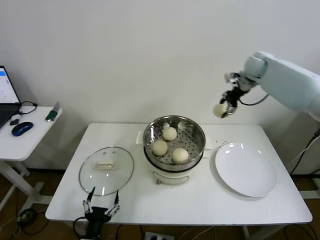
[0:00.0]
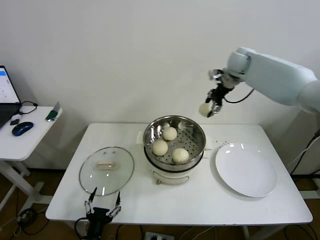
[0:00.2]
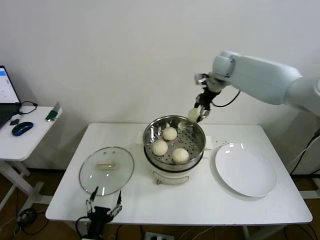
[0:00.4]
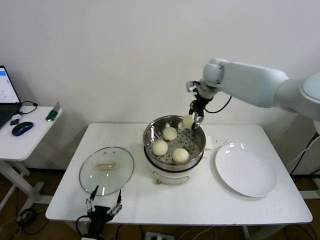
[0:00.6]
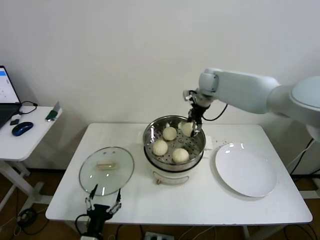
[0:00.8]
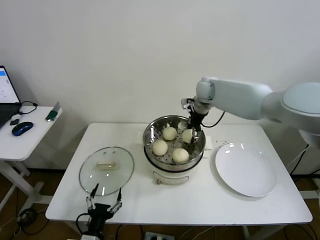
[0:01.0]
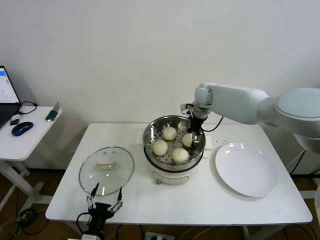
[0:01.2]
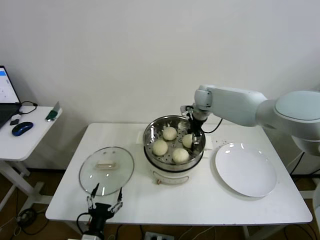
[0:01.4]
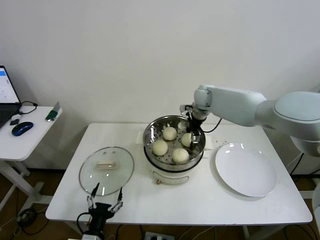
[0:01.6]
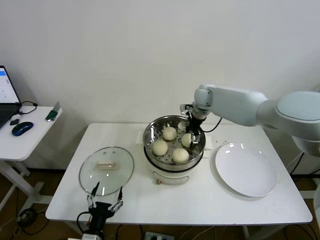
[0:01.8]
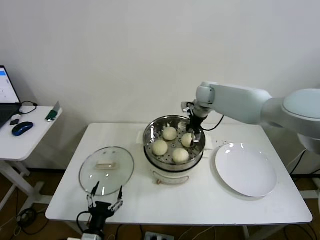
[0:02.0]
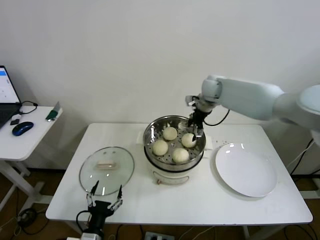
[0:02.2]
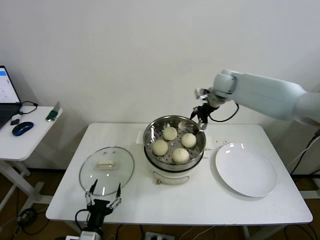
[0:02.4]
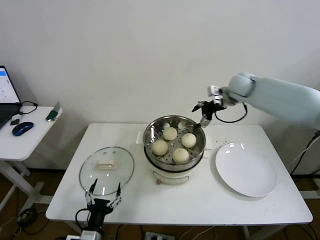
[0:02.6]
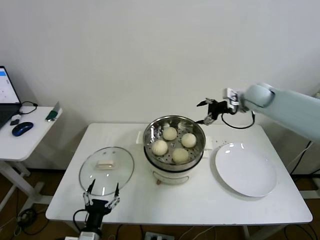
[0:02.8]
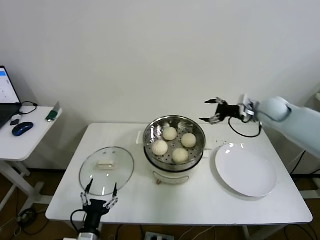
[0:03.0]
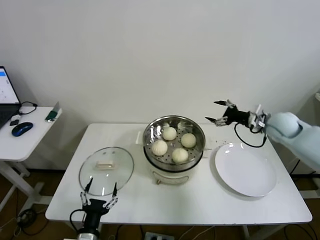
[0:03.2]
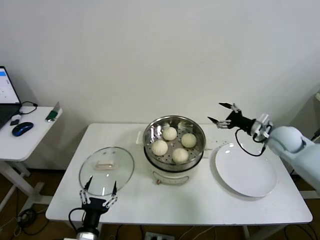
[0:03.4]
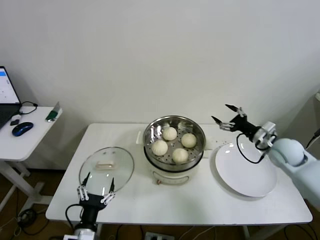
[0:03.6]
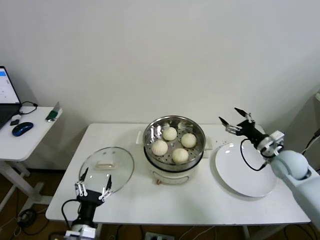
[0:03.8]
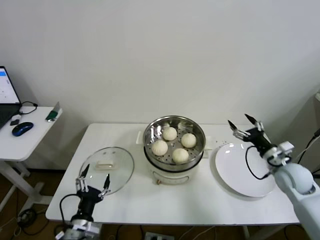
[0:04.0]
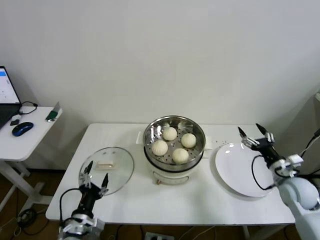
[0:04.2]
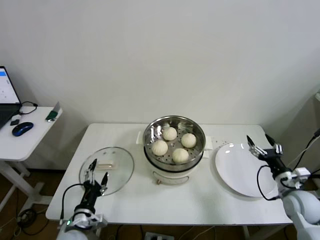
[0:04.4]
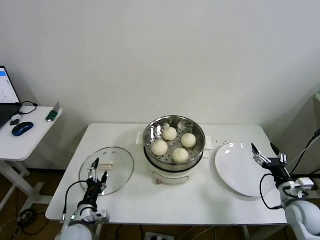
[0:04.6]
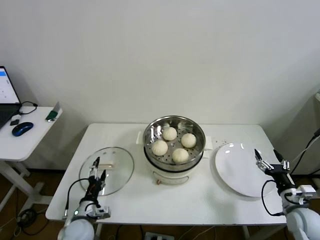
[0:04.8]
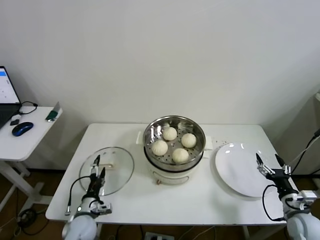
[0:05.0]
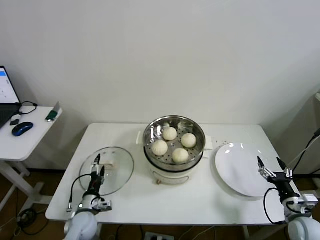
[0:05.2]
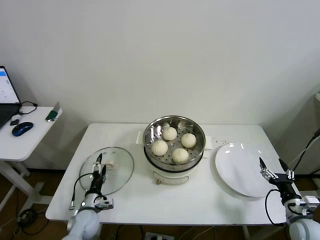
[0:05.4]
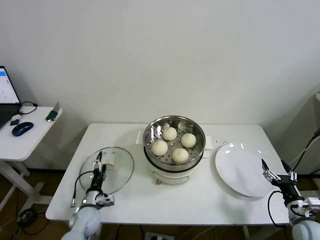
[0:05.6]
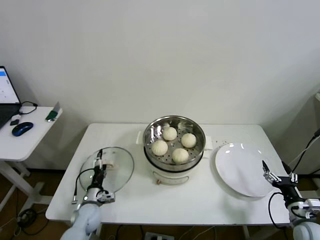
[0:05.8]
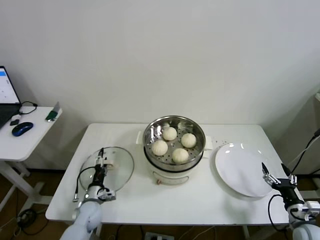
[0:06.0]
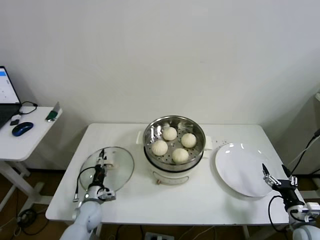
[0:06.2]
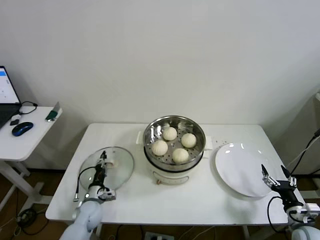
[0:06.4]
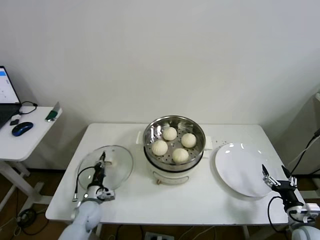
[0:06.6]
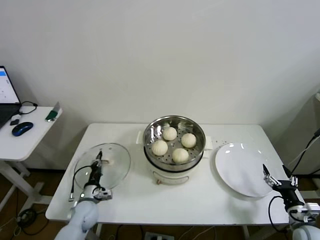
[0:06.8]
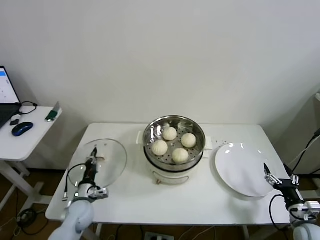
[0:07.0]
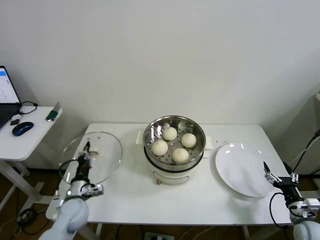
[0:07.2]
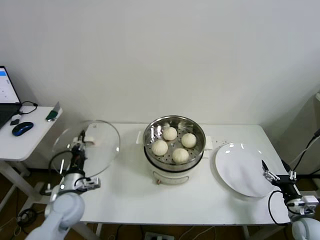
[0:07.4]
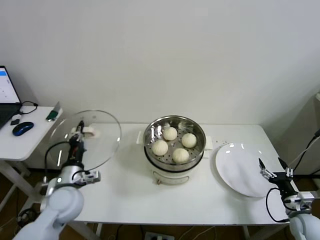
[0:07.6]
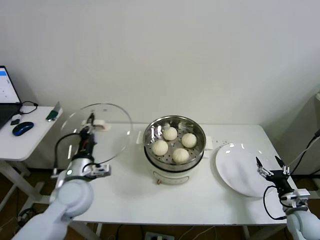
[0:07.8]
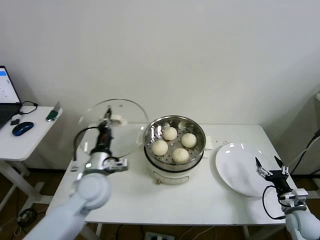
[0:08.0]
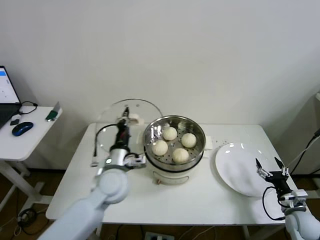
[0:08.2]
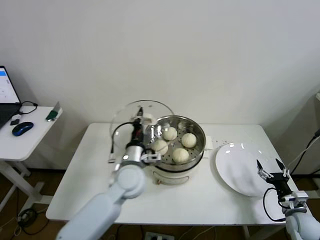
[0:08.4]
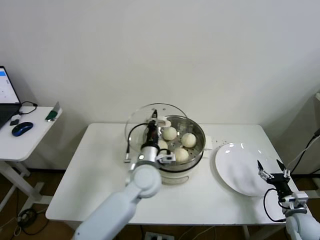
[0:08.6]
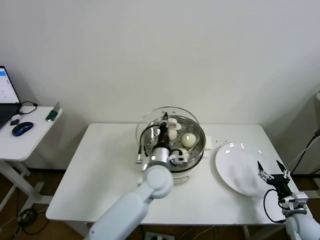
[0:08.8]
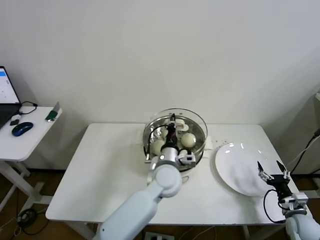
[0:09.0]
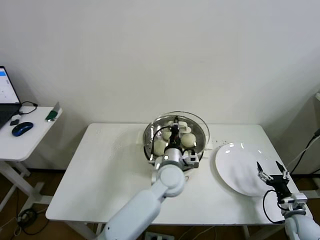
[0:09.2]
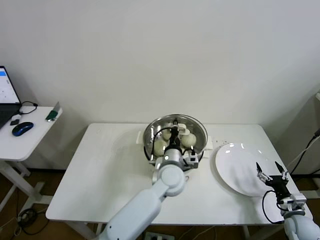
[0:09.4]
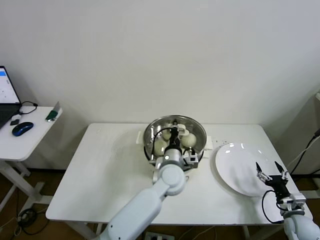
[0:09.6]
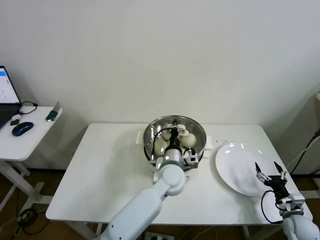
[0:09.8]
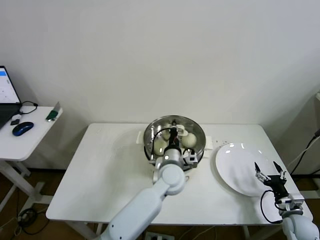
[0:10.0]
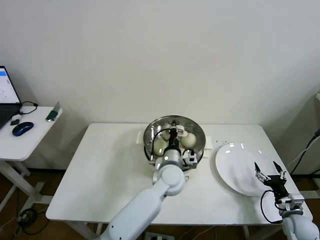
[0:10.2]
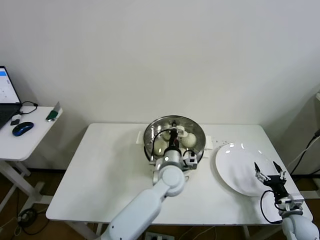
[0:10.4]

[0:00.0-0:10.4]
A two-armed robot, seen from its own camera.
Step, 0:00.0 to 0:02.0: Place the baozi on the steamer with right gripper.
Step, 0:02.2 to 0:06.6: Grasp the pot lid with left gripper.
0:00.0 to 0:01.4: The right gripper shifts about 20 cm to the left and downward.
0:01.4 to 0:03.0: The right gripper moves to the right and backward, some 25 cm, and opens its fingers.
0:03.0 to 0:04.4: The right gripper heads backward and downward, covering roughly 30 cm; the left gripper goes approximately 5 cm forward.
0:04.4 to 0:06.0: The left gripper goes approximately 15 cm forward and downward. The right gripper moves backward and downward, some 10 cm.
0:06.0 to 0:07.4: The left gripper goes some 15 cm upward, and closes its fingers.
0:07.4 to 0:09.0: The left gripper goes approximately 30 cm to the right.
0:09.0 to 0:10.4: There are only small adjustments of the grippers.

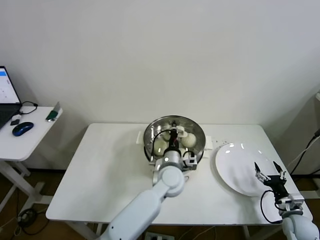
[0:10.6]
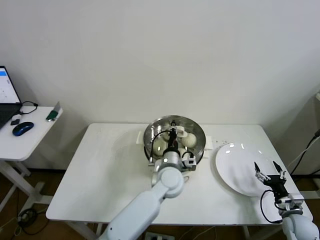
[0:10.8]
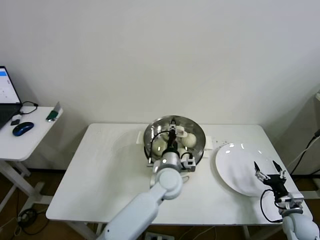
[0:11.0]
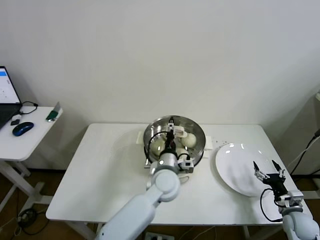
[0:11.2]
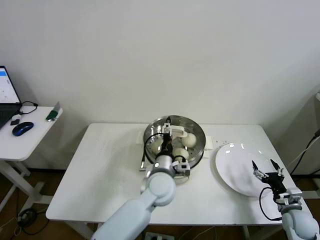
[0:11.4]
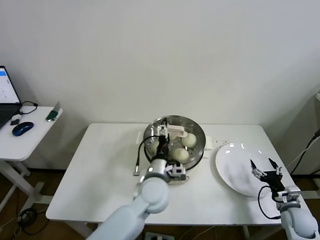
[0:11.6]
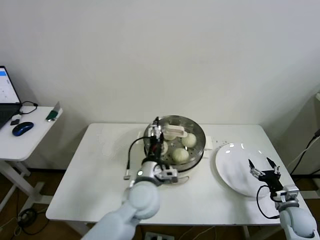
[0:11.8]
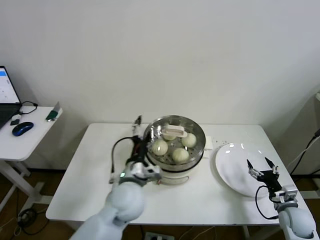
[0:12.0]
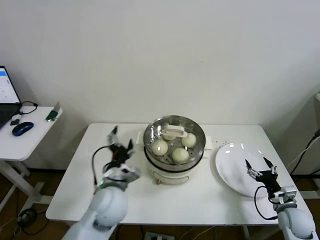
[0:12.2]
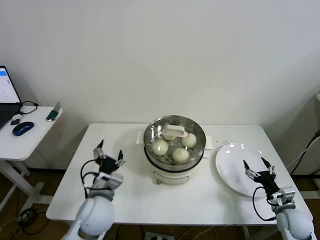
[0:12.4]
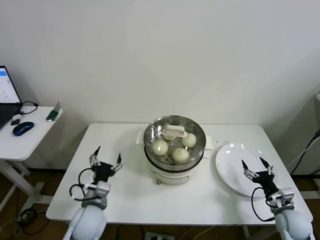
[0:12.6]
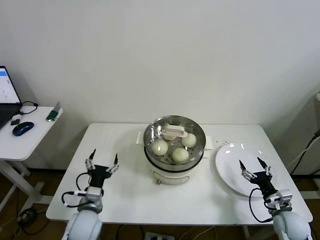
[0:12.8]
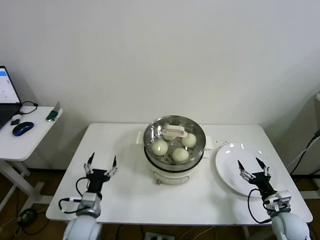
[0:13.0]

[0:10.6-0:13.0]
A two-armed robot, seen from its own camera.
0:10.6 to 0:11.8: The left gripper goes some 10 cm backward and to the left, and opens.
0:11.8 to 0:13.0: The left gripper shifts about 25 cm to the left and downward.
